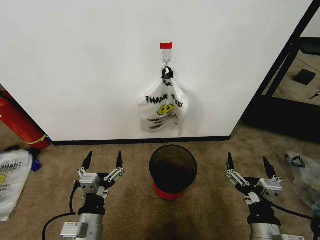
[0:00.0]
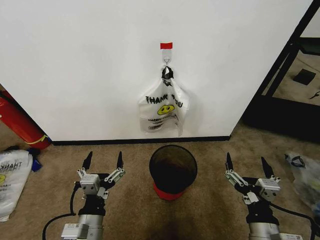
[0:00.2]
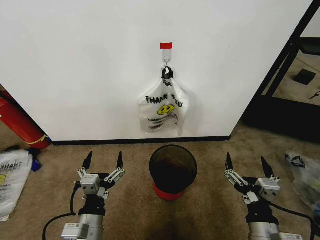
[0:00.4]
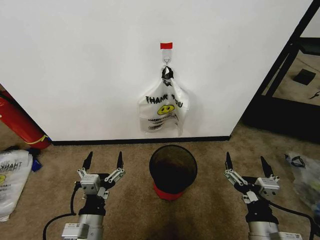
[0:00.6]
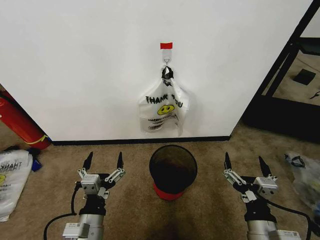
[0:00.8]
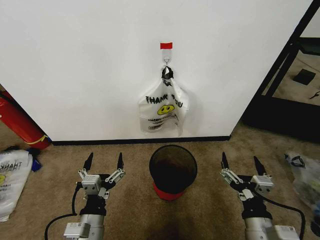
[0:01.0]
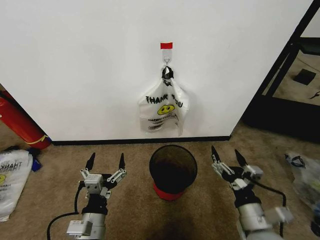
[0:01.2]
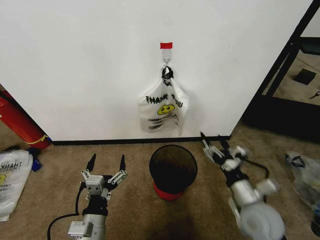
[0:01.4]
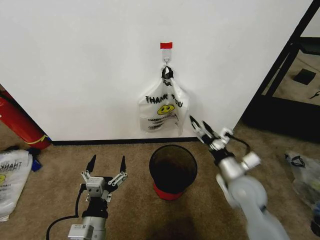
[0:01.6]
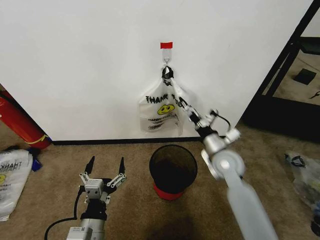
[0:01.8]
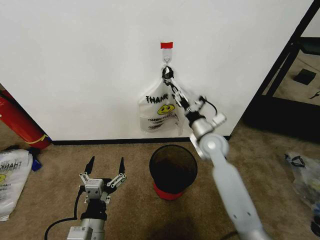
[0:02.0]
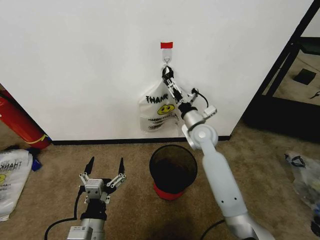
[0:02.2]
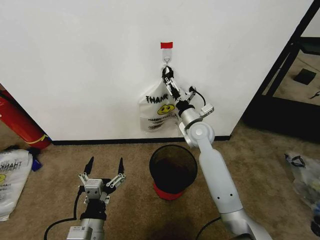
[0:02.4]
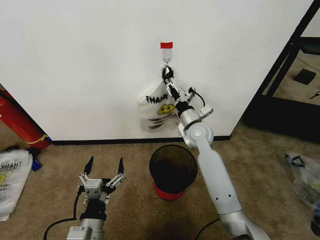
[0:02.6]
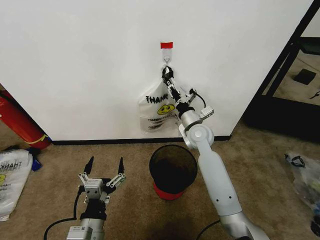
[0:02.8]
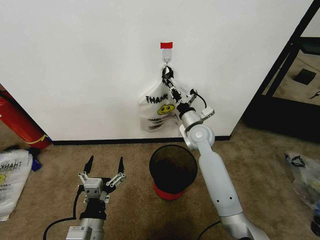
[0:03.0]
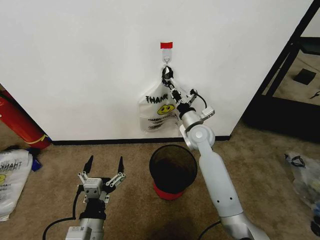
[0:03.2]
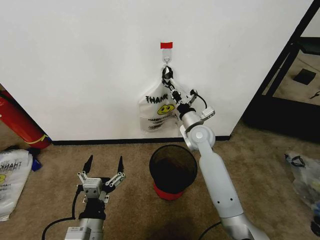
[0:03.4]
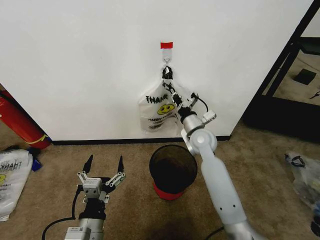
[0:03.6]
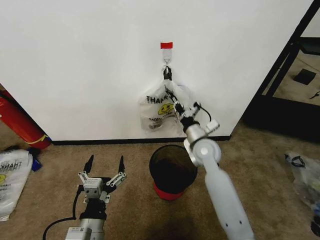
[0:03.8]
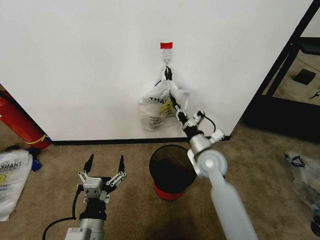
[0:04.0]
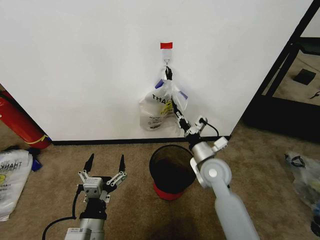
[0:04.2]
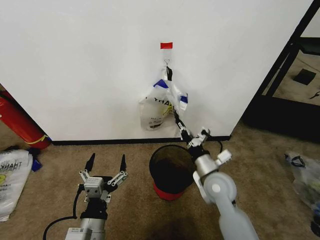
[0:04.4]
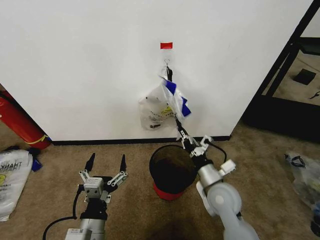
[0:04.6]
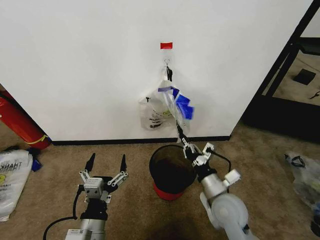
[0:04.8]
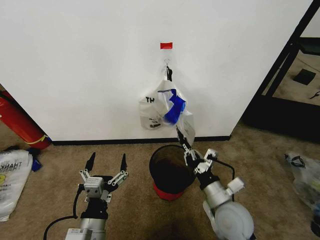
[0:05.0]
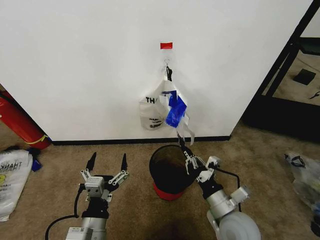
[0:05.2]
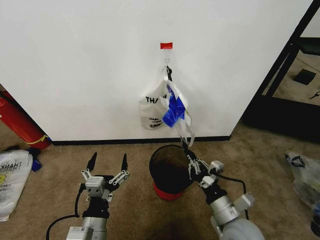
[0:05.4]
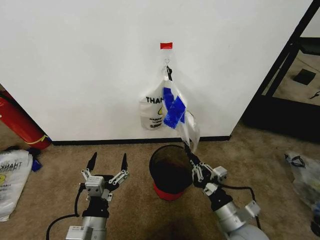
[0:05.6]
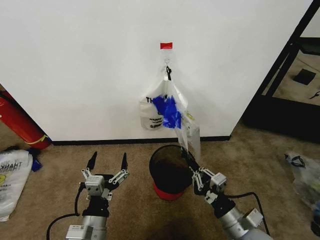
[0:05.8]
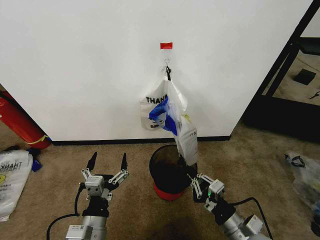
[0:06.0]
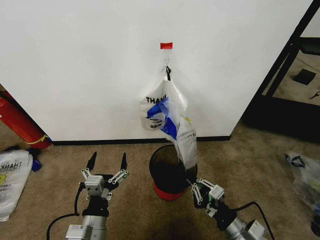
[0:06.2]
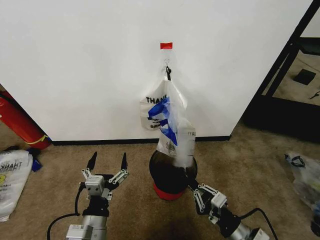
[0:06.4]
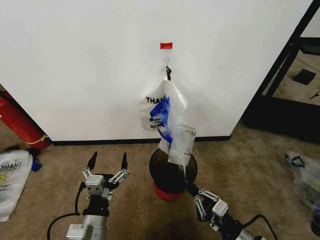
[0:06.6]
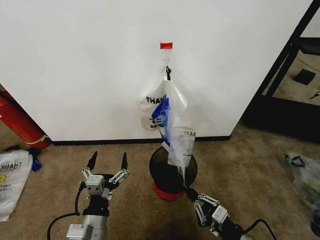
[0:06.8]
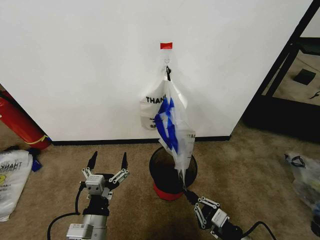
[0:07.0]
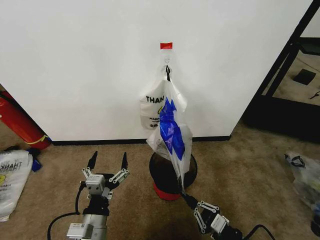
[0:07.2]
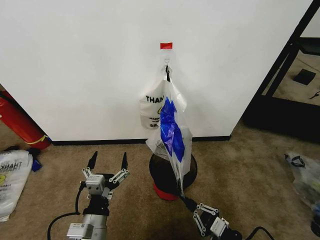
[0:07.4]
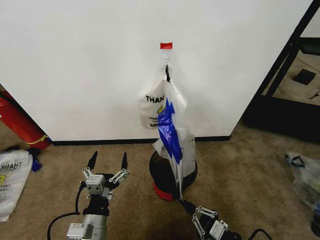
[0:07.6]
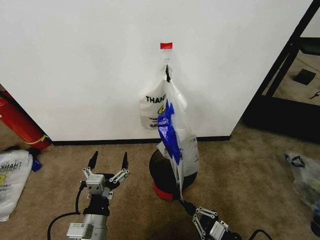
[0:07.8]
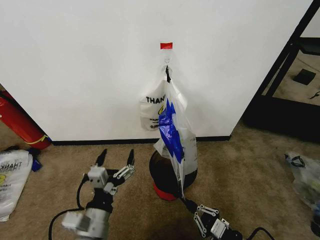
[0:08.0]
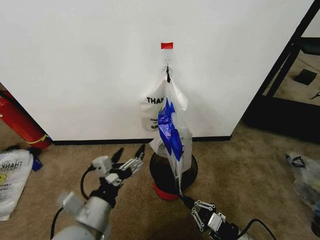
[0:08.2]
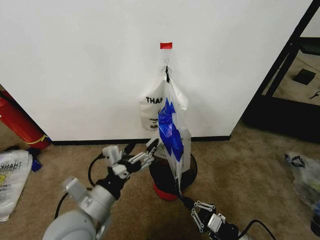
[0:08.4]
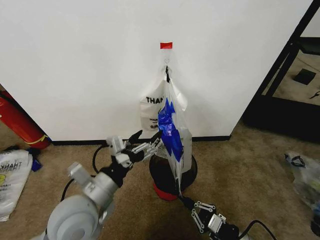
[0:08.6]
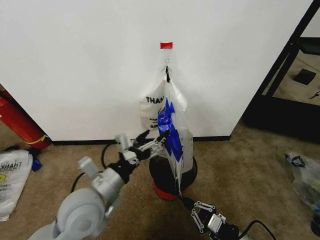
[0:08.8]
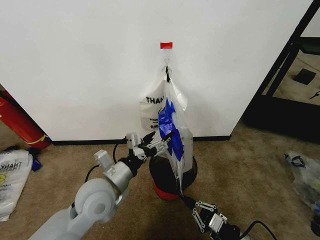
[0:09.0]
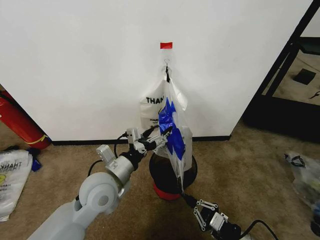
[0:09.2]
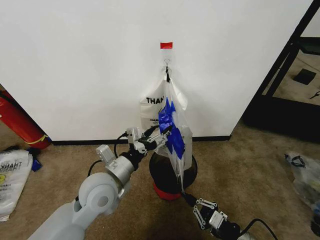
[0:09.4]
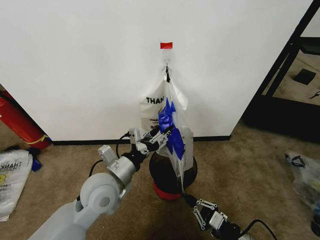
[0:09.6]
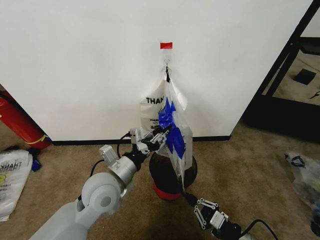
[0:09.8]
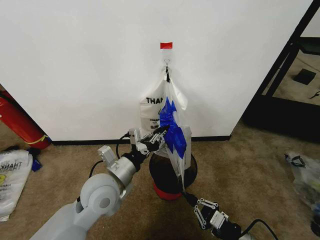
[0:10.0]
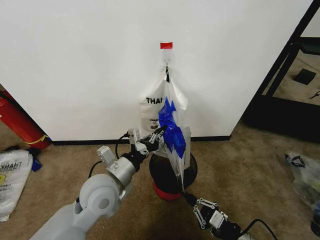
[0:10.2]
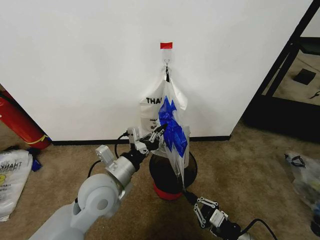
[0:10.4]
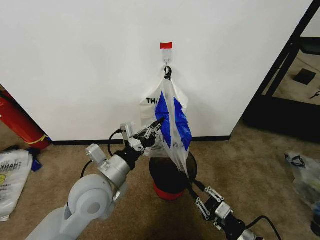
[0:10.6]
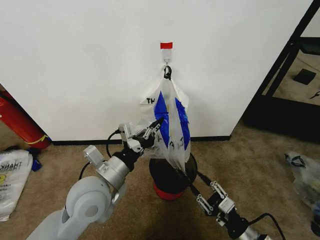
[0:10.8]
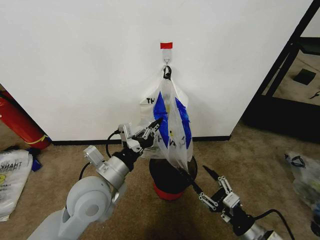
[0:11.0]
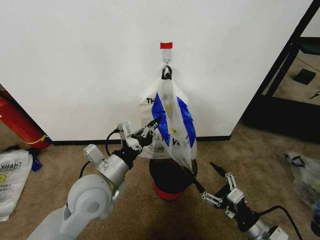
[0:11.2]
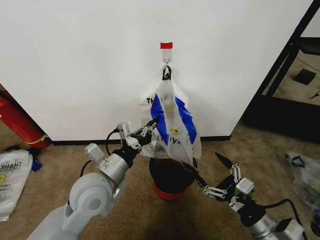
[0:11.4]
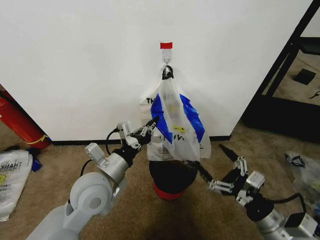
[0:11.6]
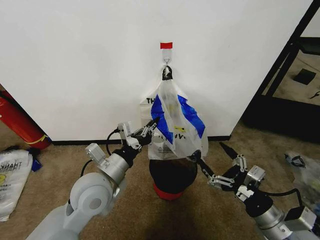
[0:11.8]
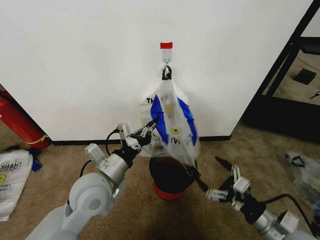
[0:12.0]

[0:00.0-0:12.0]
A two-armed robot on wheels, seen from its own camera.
Task of the whole recording: Pick up the garbage bag from the wall and place it over the trash bin.
0:01.6 to 0:03.0: The right gripper moves forward and to the left, some 20 cm, and closes.
0:03.0 to 0:04.4: The right gripper shifts some 15 cm backward.
0:04.4 to 0:06.0: The right gripper is displaced backward and to the right by roughly 20 cm.
0:06.0 to 0:07.6: The right gripper shifts about 5 cm downward.
0:07.6 to 0:09.0: The left gripper shifts roughly 15 cm forward and upward.
0:09.0 to 0:10.4: The left gripper closes its fingers.
0:10.4 to 0:12.0: The right gripper goes some 10 cm upward, and opens its fingers.

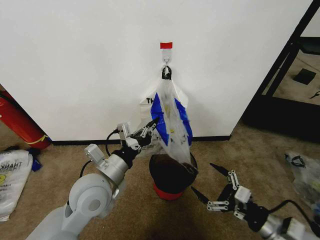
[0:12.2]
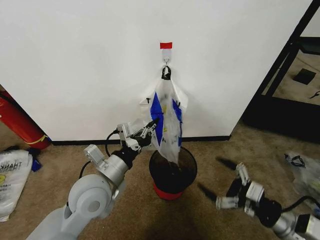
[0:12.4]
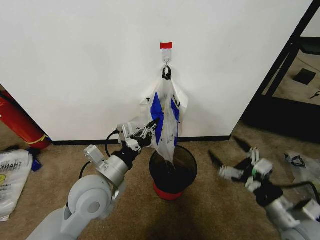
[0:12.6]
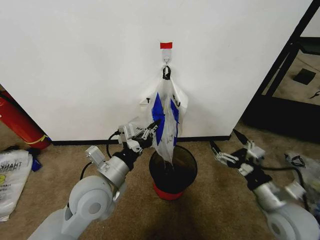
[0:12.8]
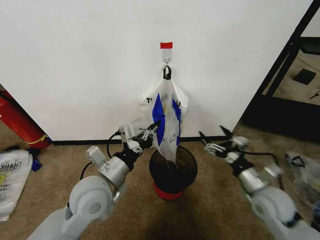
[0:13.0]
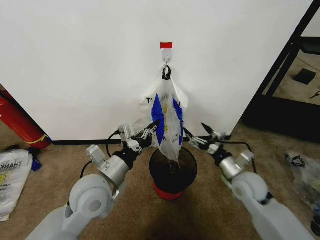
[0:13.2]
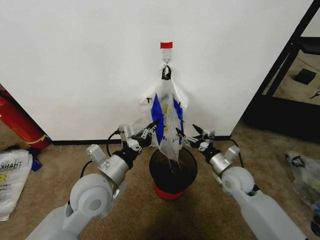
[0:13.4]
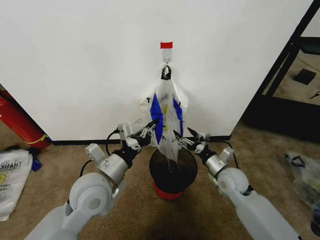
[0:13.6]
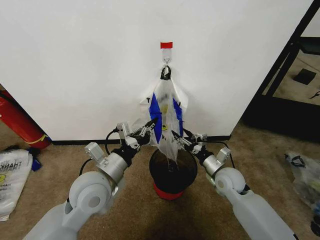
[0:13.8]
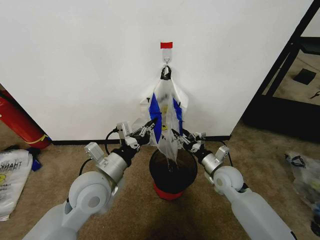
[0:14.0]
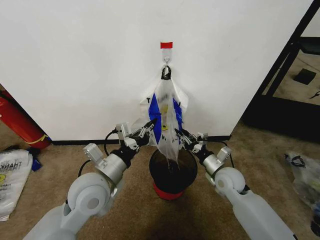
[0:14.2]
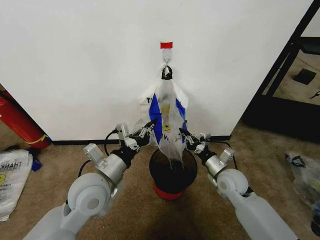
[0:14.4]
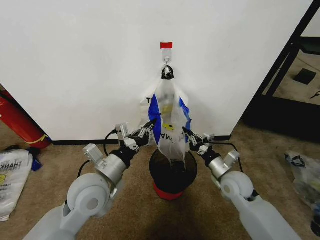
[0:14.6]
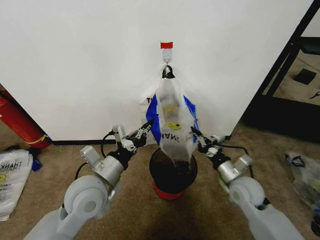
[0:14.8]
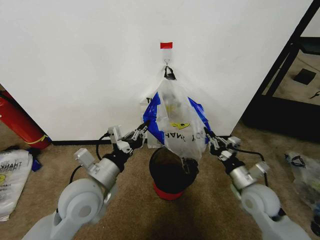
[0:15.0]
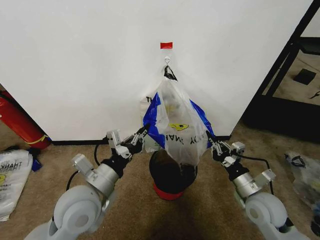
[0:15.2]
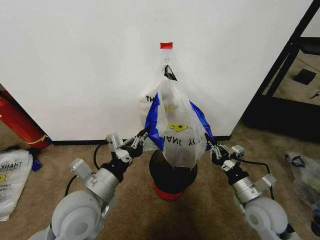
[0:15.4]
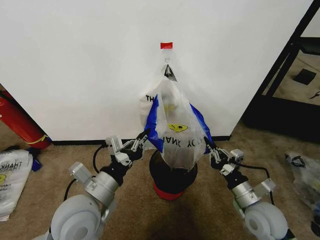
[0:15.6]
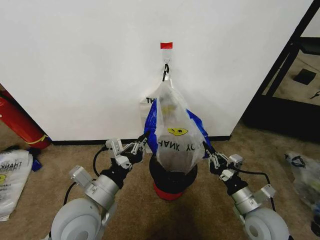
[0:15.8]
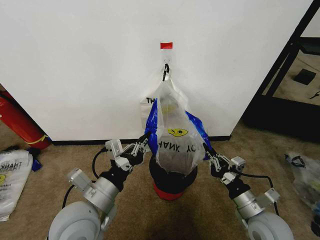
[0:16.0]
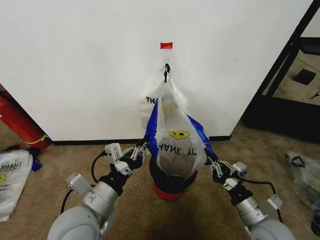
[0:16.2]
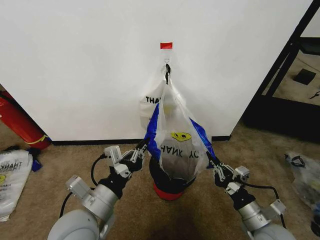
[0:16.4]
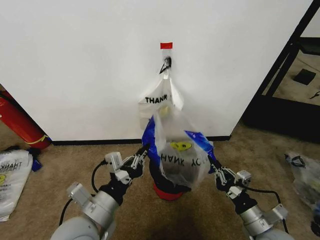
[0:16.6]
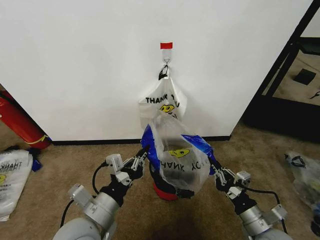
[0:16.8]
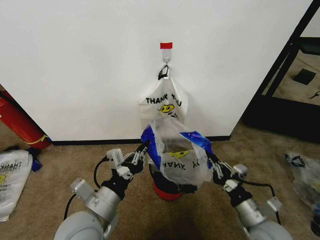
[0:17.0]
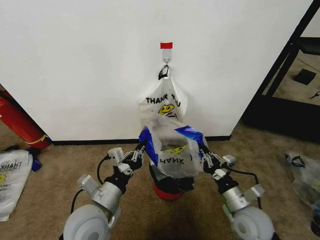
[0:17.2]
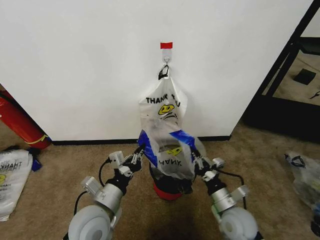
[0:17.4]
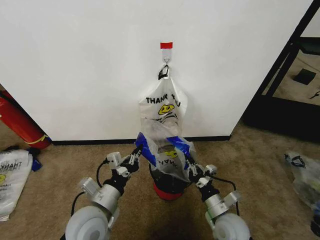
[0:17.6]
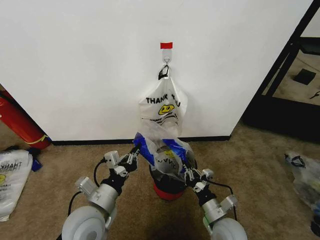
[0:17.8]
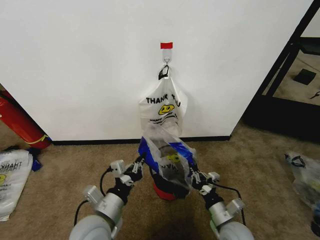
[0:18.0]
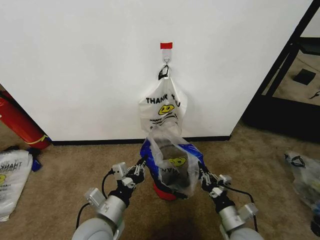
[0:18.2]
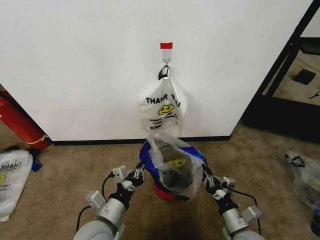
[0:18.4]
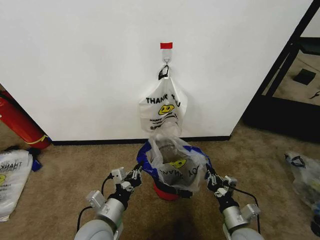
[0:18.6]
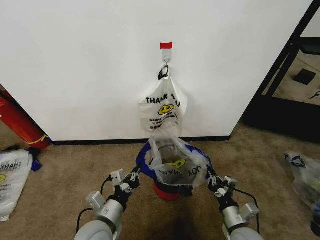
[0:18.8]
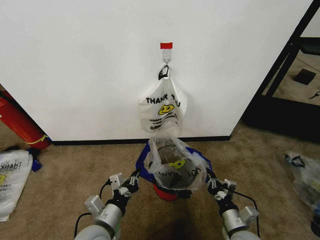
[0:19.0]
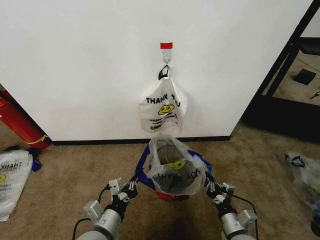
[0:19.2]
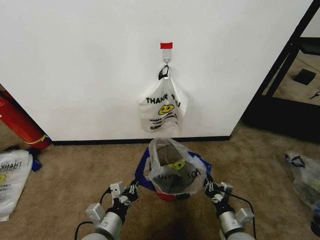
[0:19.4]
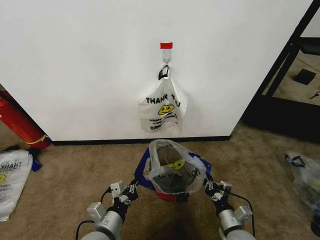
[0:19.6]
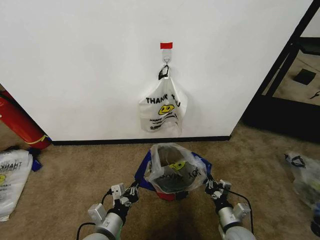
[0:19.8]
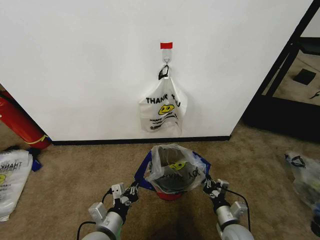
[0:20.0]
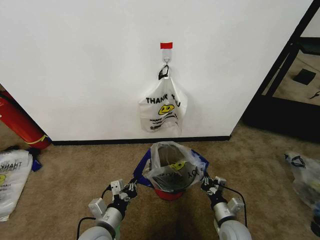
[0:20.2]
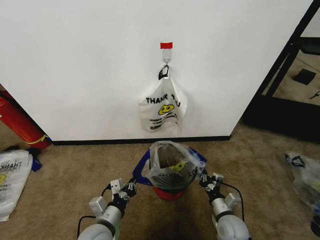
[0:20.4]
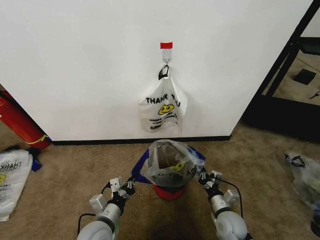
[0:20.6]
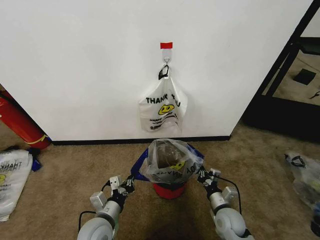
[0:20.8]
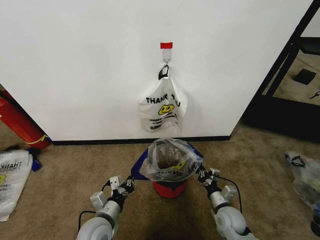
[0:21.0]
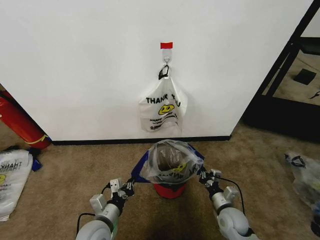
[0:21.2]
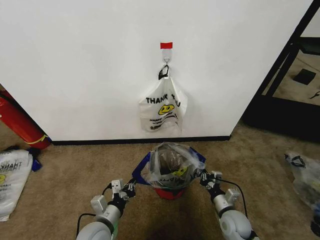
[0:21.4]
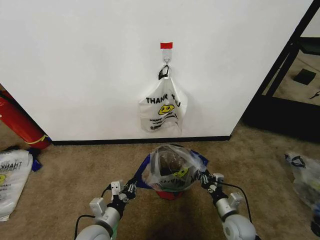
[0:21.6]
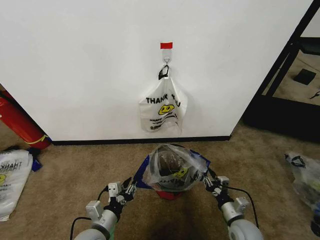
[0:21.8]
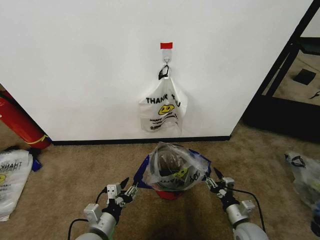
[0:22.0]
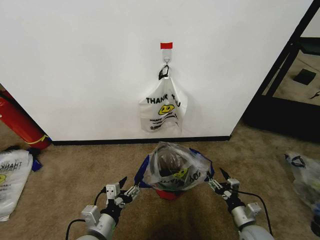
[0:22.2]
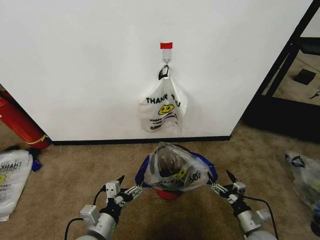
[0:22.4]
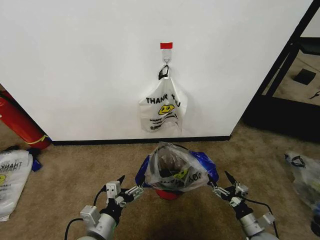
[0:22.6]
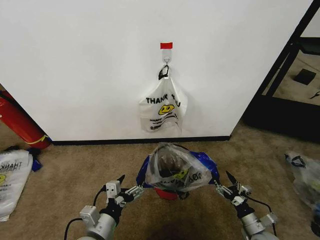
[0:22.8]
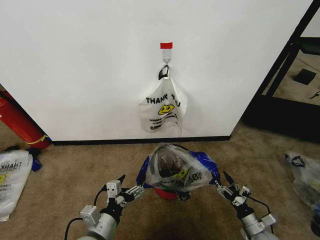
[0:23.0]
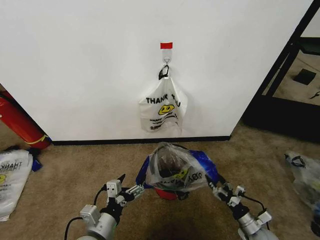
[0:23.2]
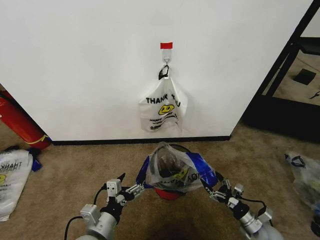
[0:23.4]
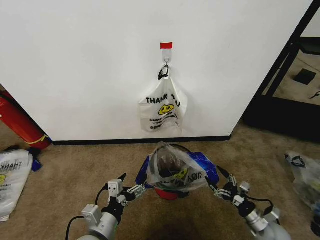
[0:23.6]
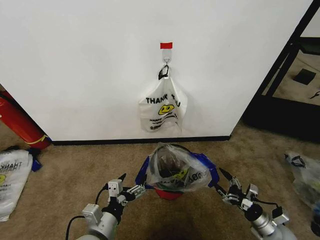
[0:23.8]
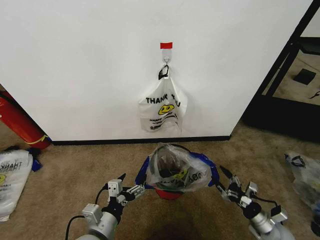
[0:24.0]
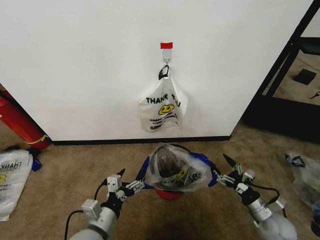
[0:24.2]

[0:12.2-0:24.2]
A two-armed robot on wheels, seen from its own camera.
Task of the whole recording: Pick up the garbage bag from the wall and place it over the trash bin.
0:12.2 to 0:13.8: The right gripper goes approximately 25 cm forward and to the left.
0:13.8 to 0:15.2: The right gripper travels backward and to the right by approximately 10 cm, and closes its fingers.
0:15.2 to 0:16.6: The two grippers go roughly 10 cm backward.
0:16.6 to 0:18.2: The left gripper shifts about 5 cm downward. Meanwhile the right gripper is displaced downward and to the left by about 10 cm.
0:18.2 to 0:19.8: Both grippers move downward, roughly 5 cm.
0:19.8 to 0:21.2: The right gripper moves forward, some 5 cm; the left gripper moves roughly 5 cm.
0:21.2 to 0:22.6: The left gripper shifts some 10 cm upward and backward, and opens. Meanwhile the right gripper heads to the right and backward, covering some 15 cm, and opens.
0:22.6 to 0:24.2: The right gripper heads upward, covering some 5 cm.
